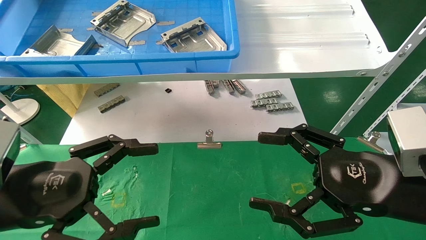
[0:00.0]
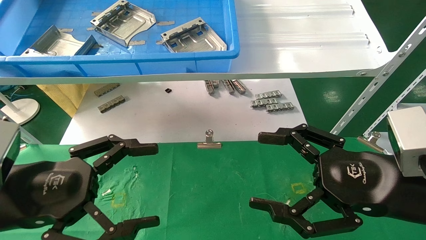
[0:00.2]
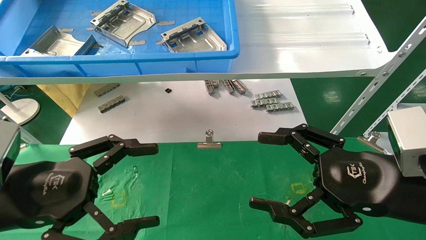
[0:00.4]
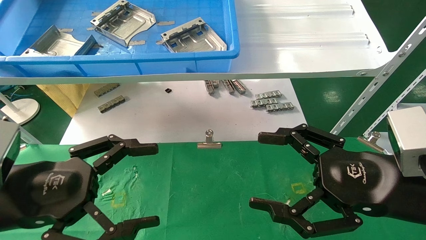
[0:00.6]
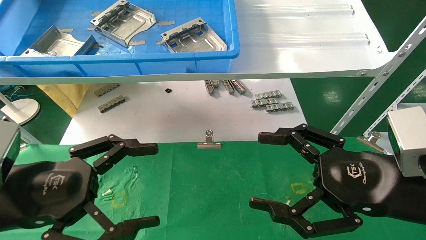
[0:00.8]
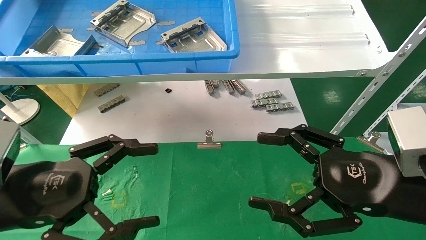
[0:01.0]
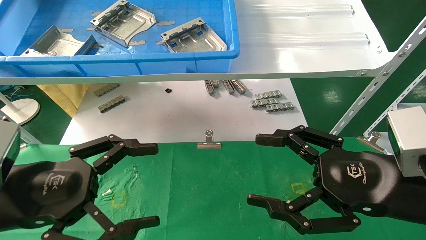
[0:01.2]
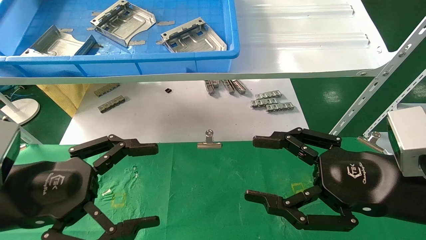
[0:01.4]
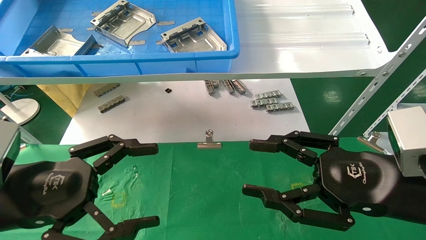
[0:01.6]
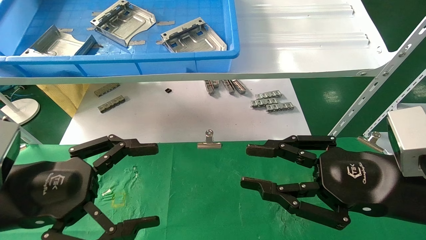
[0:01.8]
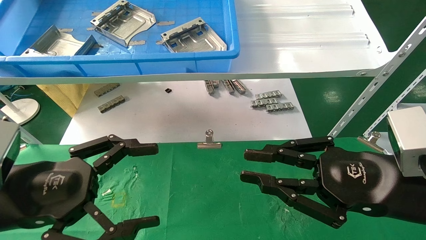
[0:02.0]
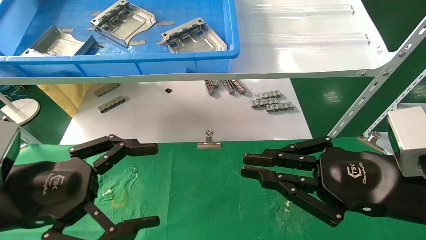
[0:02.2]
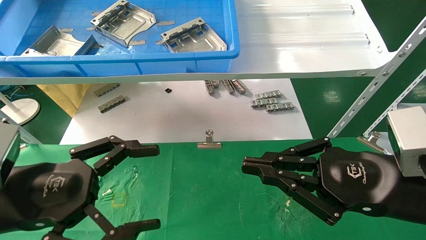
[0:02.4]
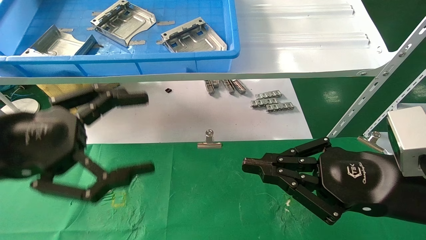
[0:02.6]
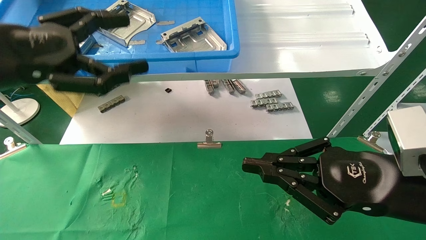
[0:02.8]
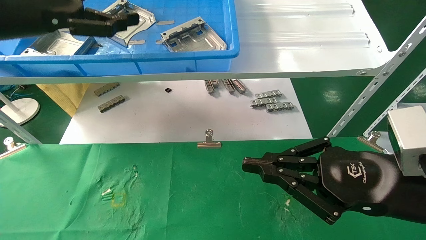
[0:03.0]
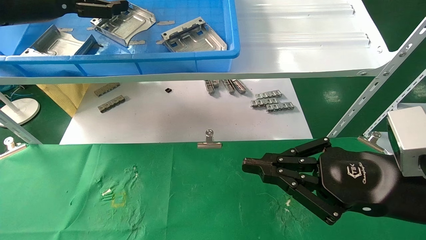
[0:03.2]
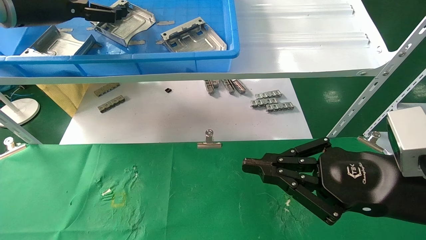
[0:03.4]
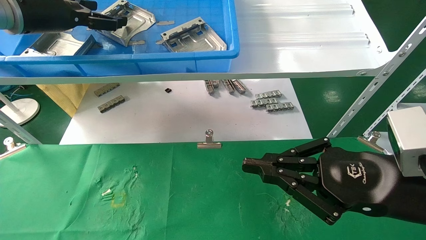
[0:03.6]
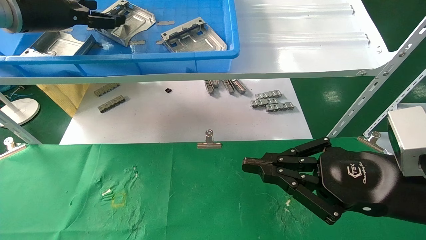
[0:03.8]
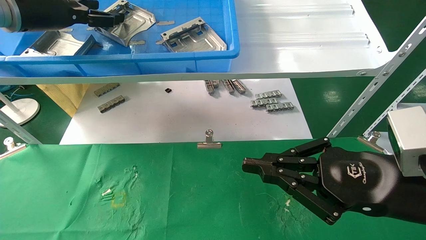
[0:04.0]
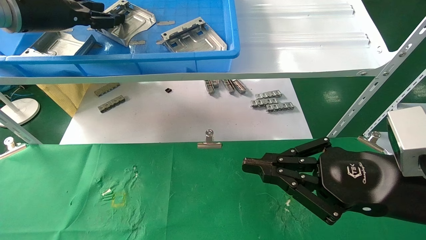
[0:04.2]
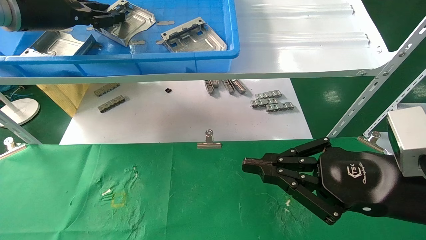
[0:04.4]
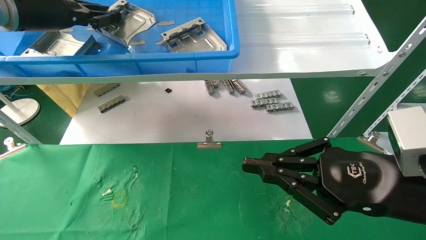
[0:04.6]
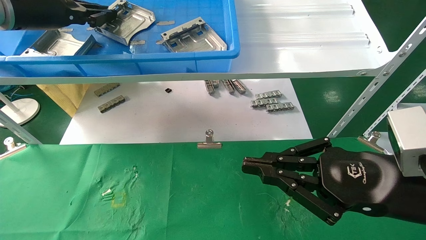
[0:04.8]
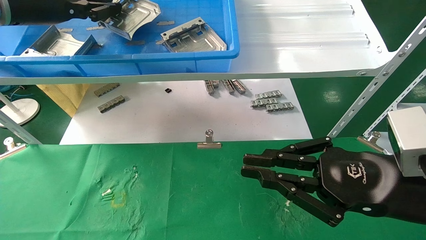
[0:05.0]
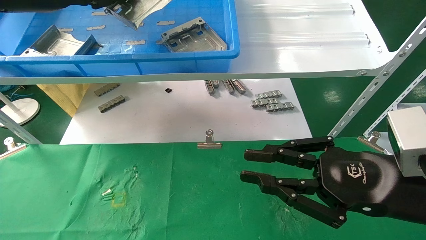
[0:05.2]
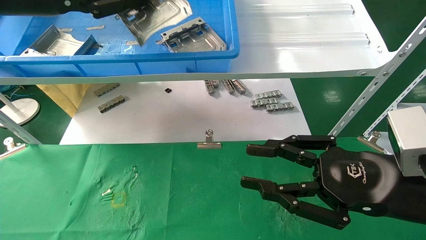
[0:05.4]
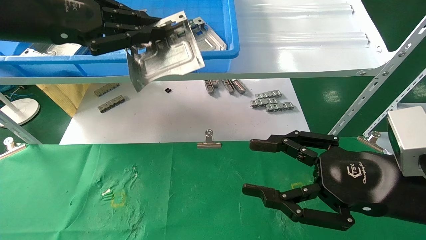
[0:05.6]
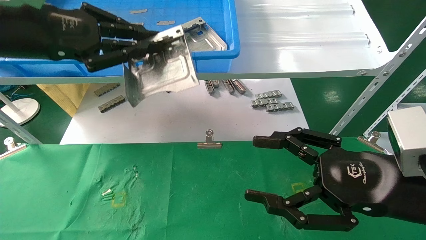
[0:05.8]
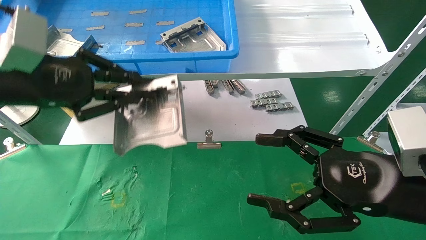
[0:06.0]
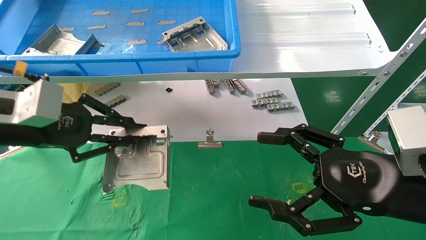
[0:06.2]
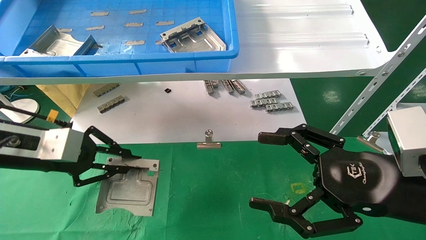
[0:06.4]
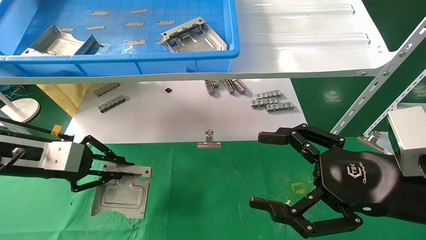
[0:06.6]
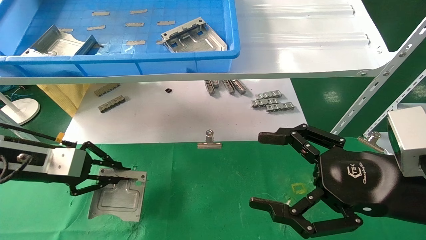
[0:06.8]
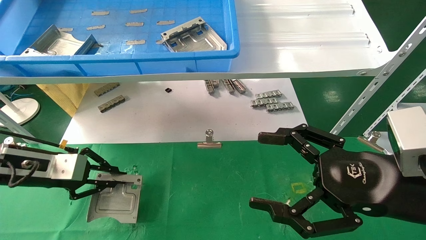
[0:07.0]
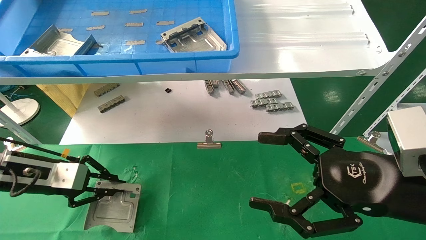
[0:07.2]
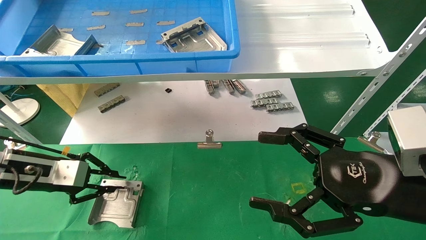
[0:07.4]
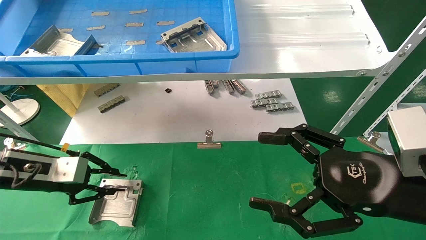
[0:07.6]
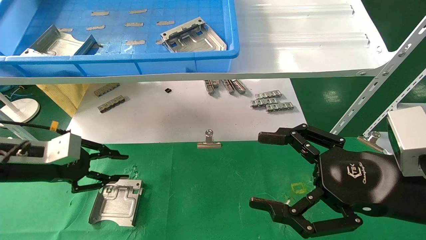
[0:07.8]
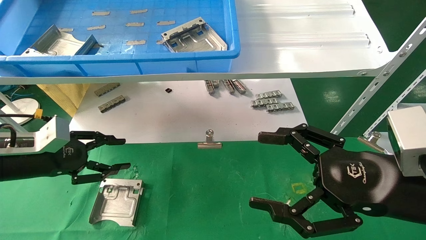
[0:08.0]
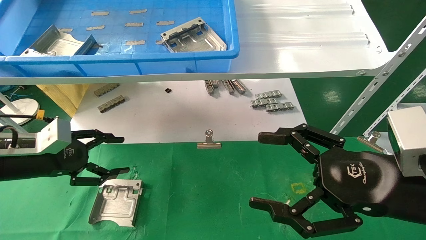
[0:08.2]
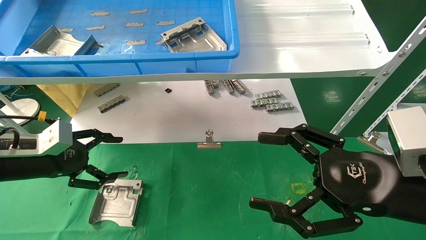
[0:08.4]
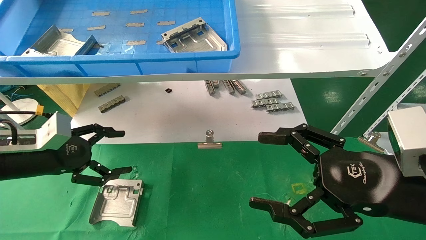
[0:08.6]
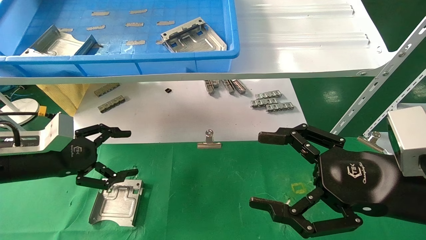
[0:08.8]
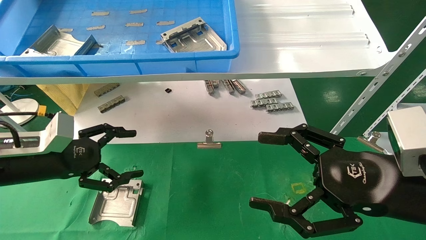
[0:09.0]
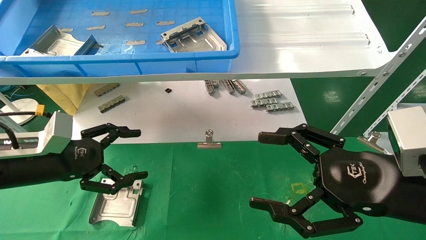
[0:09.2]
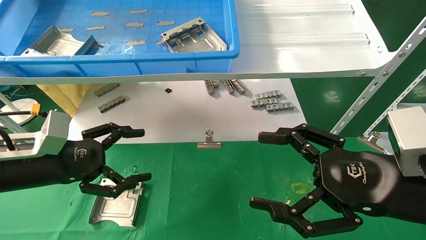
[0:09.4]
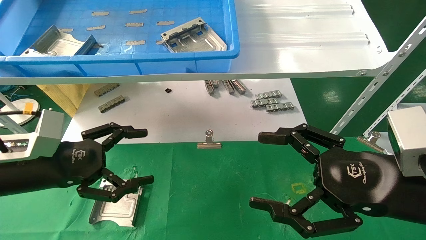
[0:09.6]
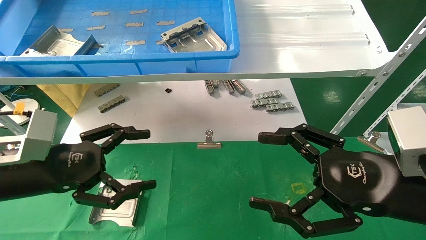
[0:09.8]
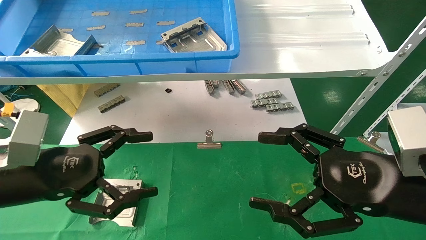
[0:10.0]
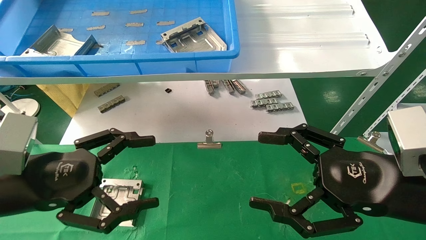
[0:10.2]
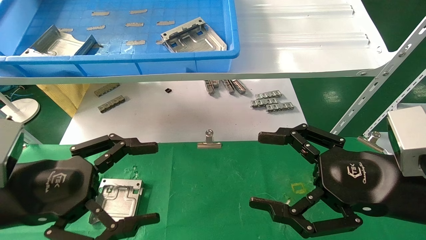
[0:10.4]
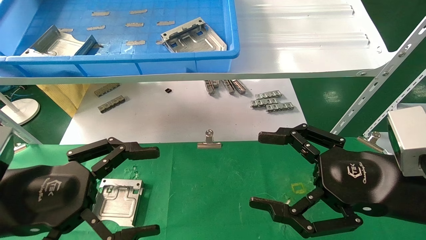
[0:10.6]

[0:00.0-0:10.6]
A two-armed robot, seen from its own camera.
Task of the whole recording: use the mechanical arm to pick up the parts and place them on the table.
Step, 0:01.6 to 0:04.6: Pick up the hard drive bracket from the feeding area.
Step, 0:04.8 to 0:07.2: Place the hard drive bracket into the box.
0:00.0 to 0:01.6: Neither gripper changes place.
0:01.6 to 0:03.0: The left gripper shifts about 25 cm upward and forward, while the right gripper closes up.
0:03.0 to 0:04.6: The left gripper heads forward, covering about 10 cm, and closes up.
0:04.6 to 0:06.0: The left gripper heads backward and downward, covering approximately 15 cm, while the right gripper opens.
0:06.0 to 0:07.6: The left gripper is displaced downward by approximately 15 cm.
0:07.6 to 0:09.0: The left gripper opens its fingers.
0:09.0 to 0:10.6: The left gripper travels backward and to the right by some 15 cm.

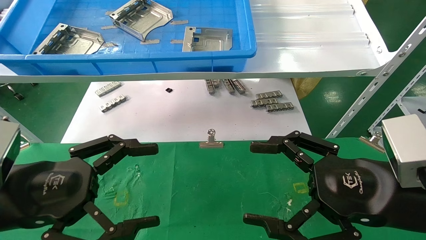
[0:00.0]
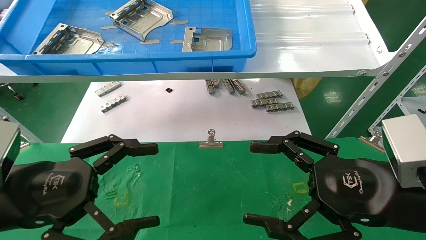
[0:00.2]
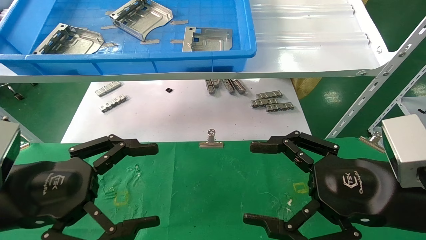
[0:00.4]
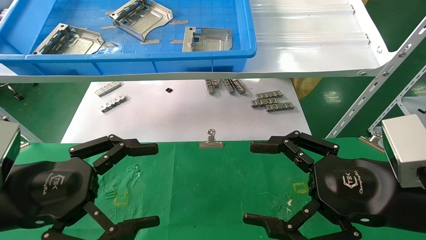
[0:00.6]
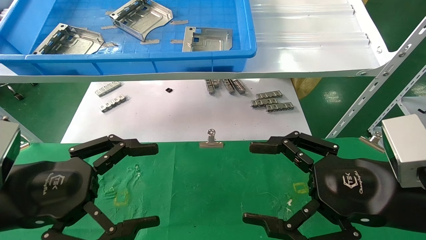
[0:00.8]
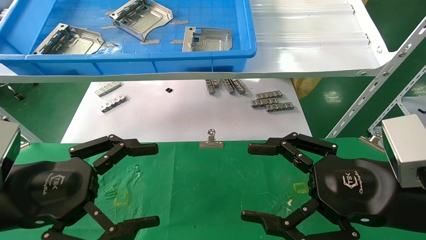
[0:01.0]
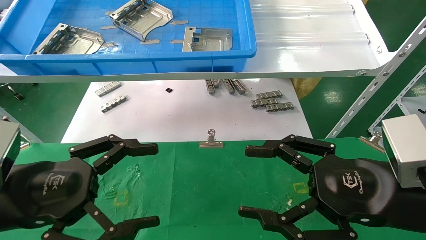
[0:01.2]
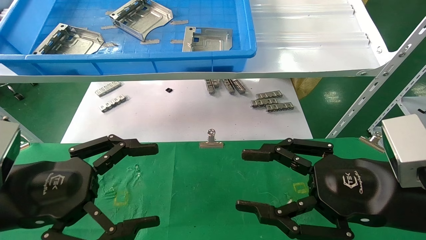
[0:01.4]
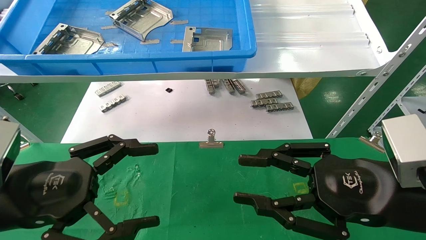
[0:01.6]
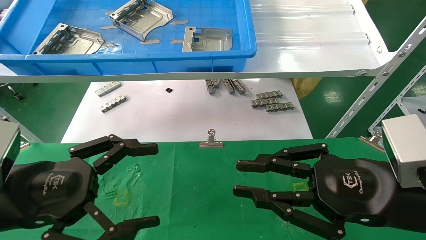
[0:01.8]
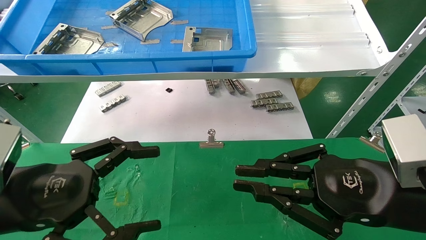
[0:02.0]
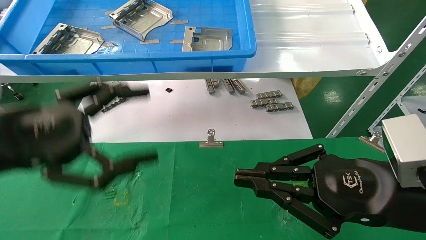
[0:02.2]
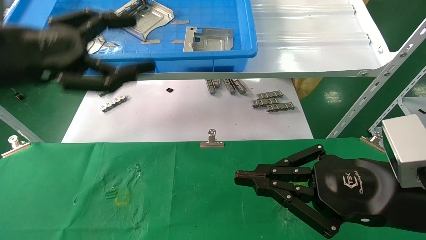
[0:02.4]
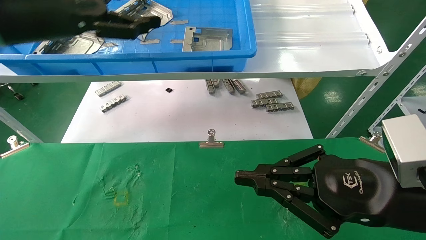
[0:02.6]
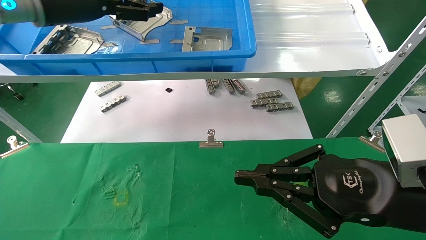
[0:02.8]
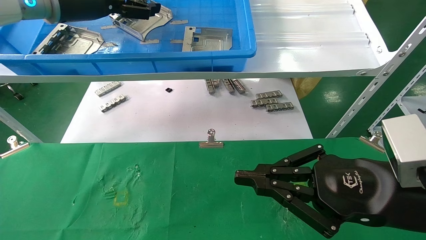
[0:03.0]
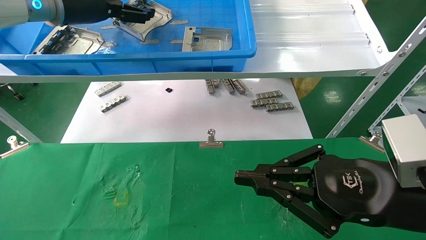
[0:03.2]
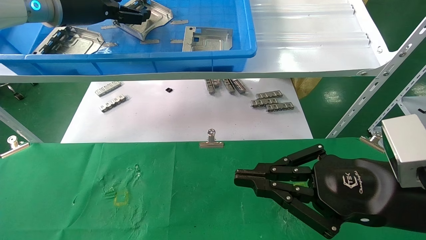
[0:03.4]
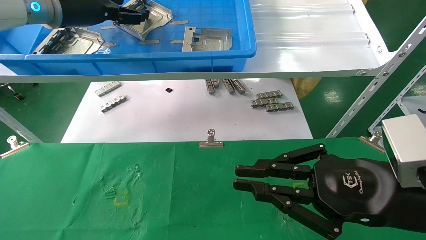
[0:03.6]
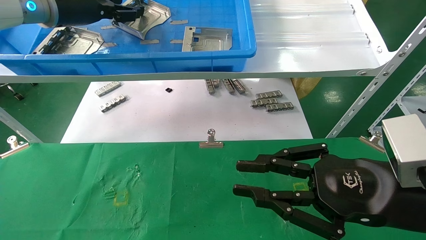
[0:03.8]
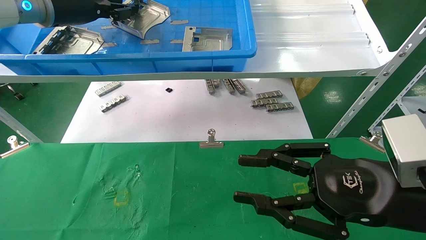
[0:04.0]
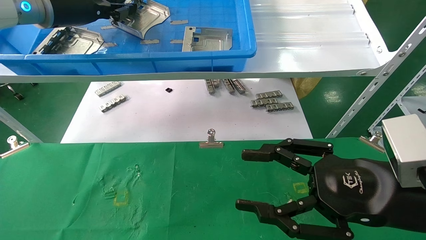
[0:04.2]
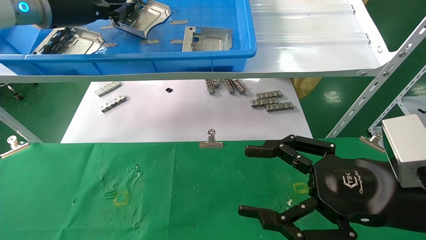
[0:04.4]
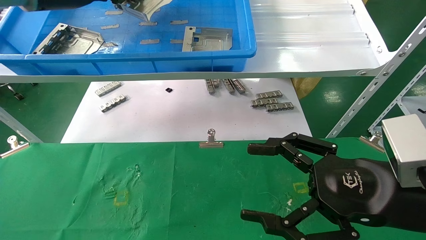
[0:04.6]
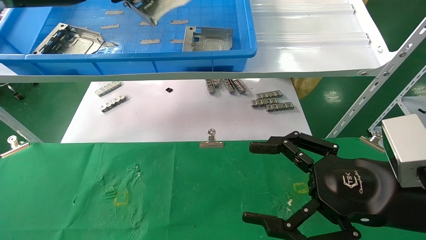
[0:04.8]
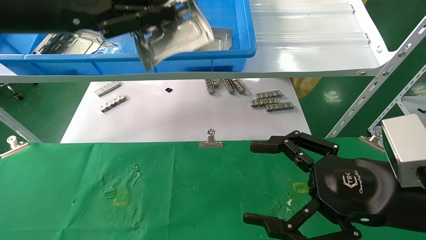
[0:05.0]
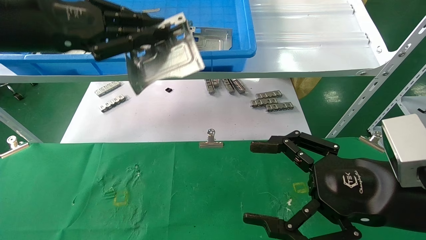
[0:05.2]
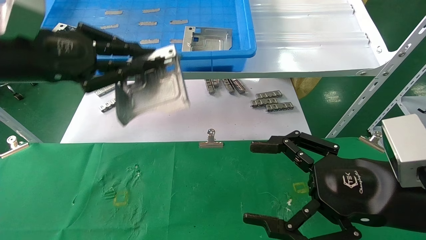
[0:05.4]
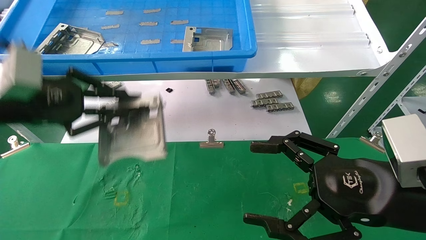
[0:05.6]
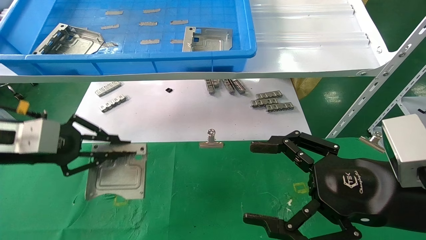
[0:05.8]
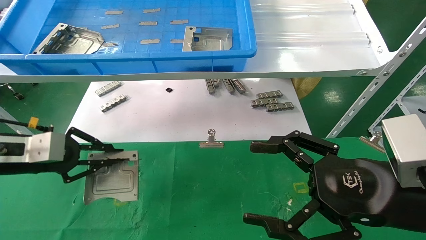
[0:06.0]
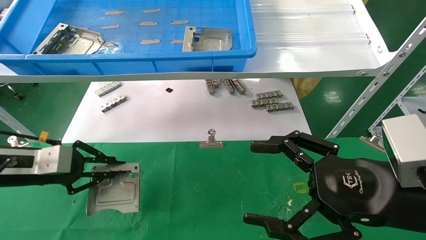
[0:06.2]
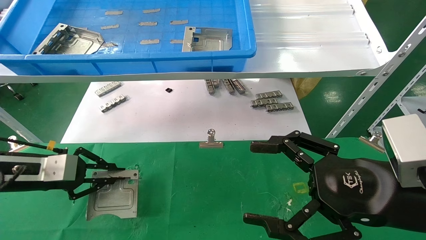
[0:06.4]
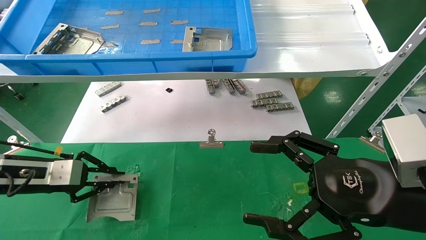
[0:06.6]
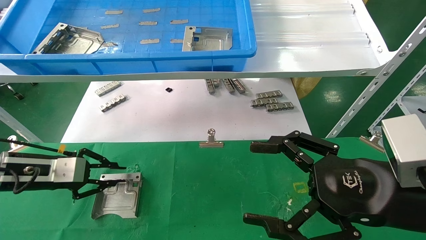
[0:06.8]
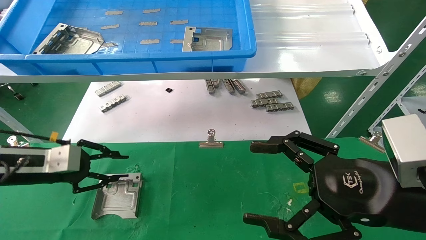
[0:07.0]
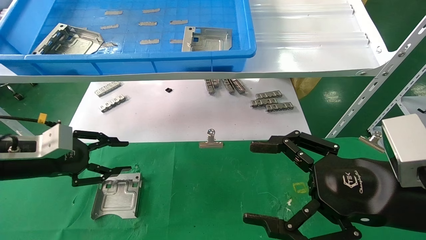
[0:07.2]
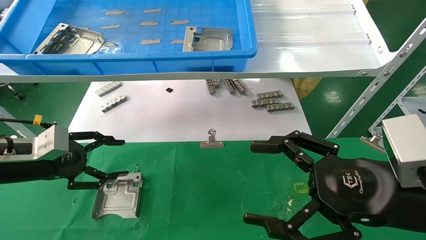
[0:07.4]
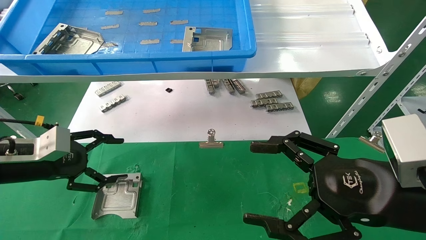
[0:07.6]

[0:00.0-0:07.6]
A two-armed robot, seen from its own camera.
Task of the whole recording: use the mechanical arm to pick up the parts and place them on the table.
Step, 0:02.4 to 0:04.4: Pick up the hard drive bracket from the feeding area.
Step, 0:04.6 to 0:06.8: Place the hard drive bracket into the box.
0:00.0 to 0:01.6: The right gripper closes.
0:01.6 to 0:03.0: The right gripper closes its fingers, while the left gripper shifts some 30 cm upward and forward.
0:03.0 to 0:04.6: The left gripper closes. The right gripper opens its fingers.
0:04.6 to 0:06.0: The left gripper shifts some 25 cm downward.
0:06.0 to 0:07.6: The left gripper opens.
